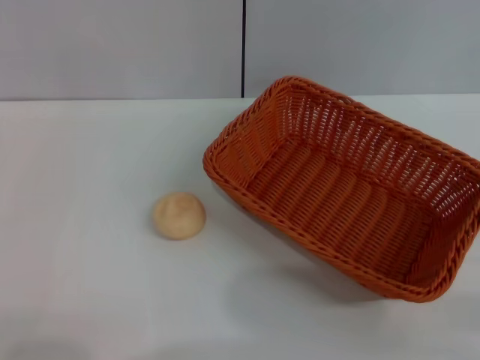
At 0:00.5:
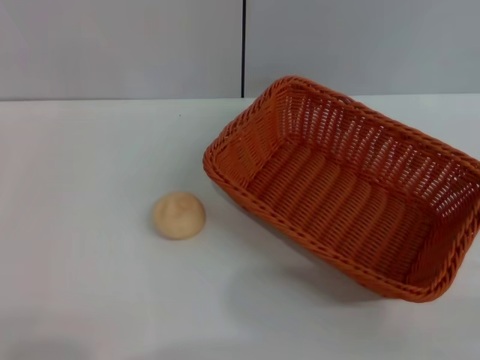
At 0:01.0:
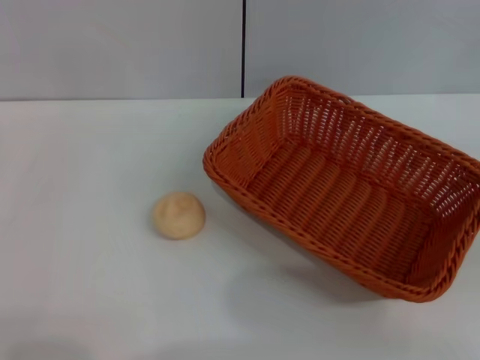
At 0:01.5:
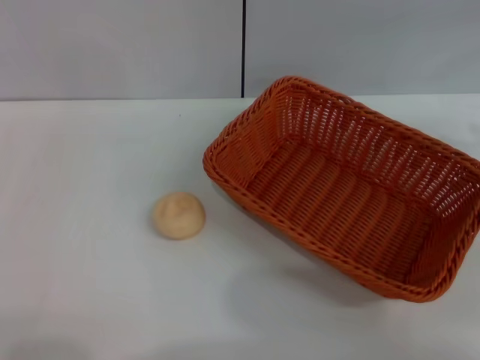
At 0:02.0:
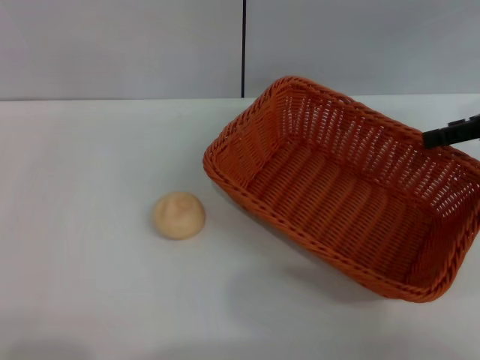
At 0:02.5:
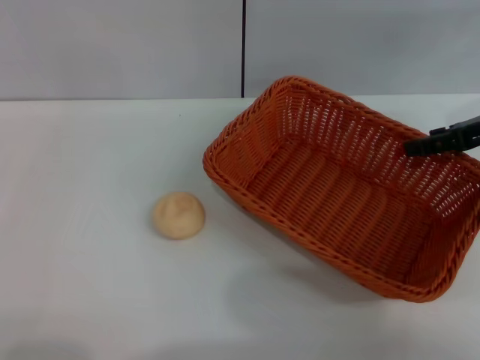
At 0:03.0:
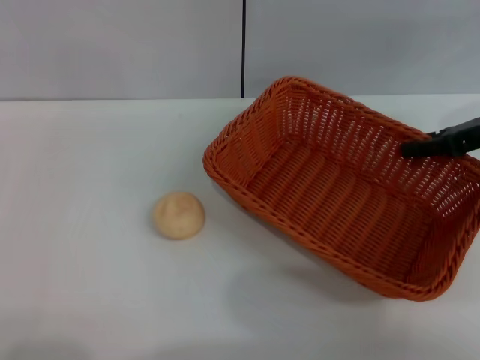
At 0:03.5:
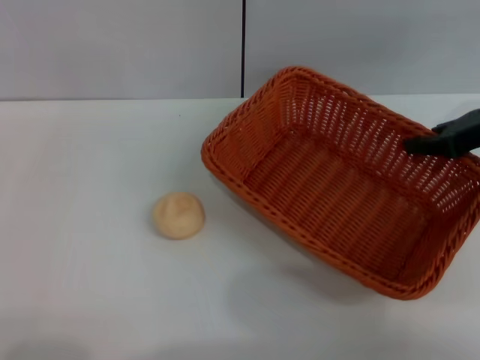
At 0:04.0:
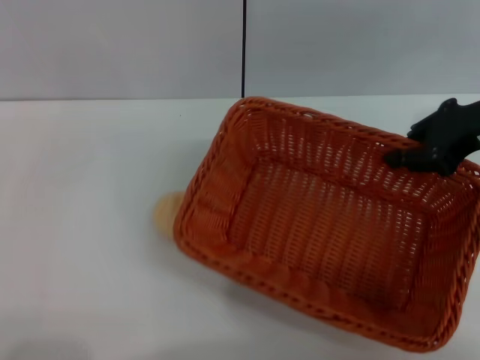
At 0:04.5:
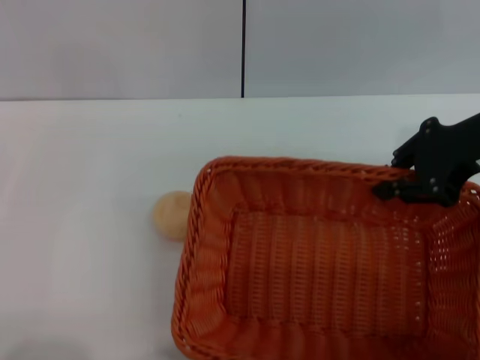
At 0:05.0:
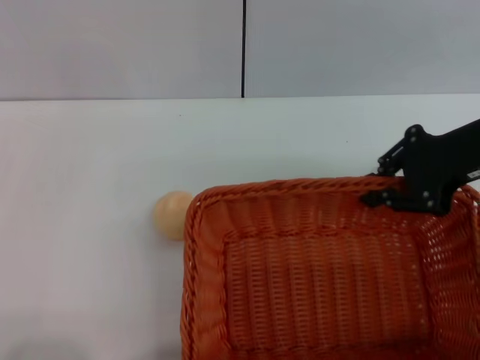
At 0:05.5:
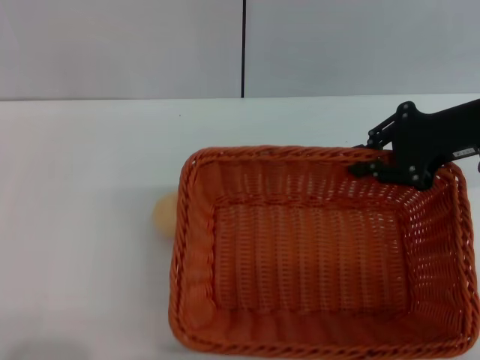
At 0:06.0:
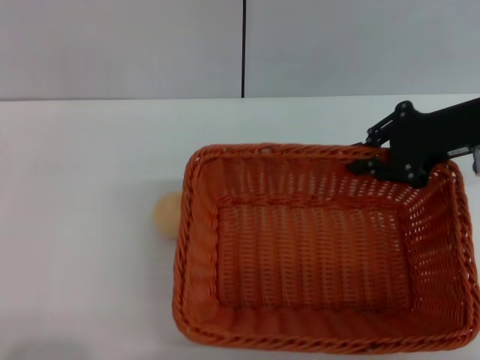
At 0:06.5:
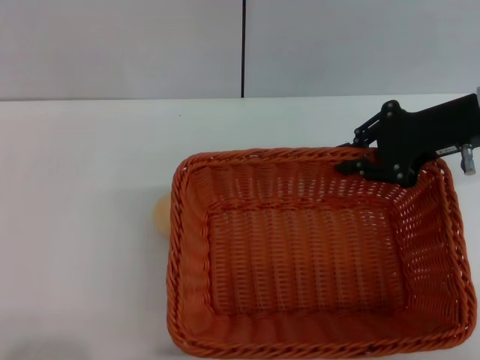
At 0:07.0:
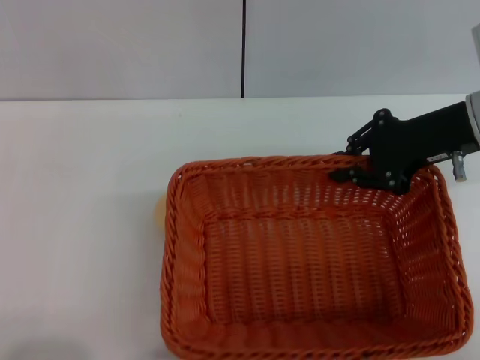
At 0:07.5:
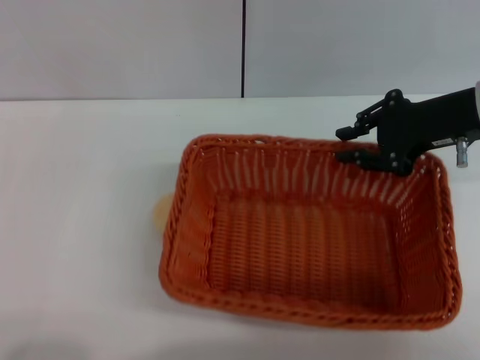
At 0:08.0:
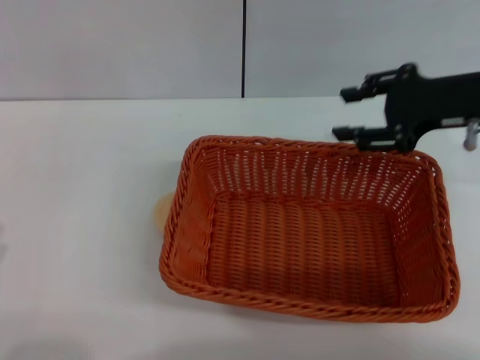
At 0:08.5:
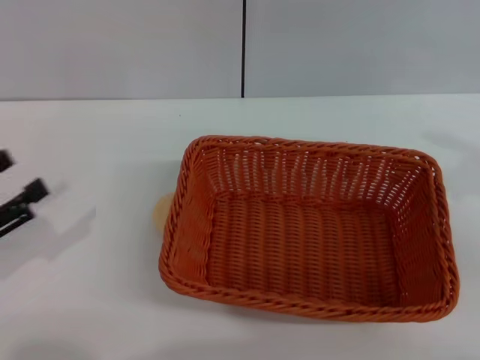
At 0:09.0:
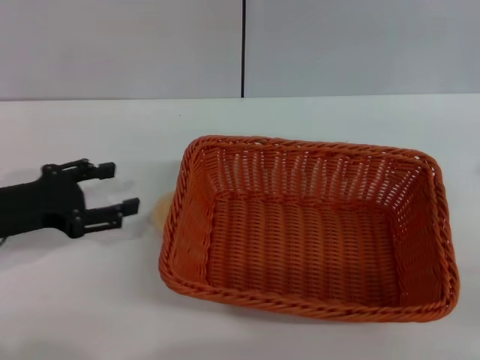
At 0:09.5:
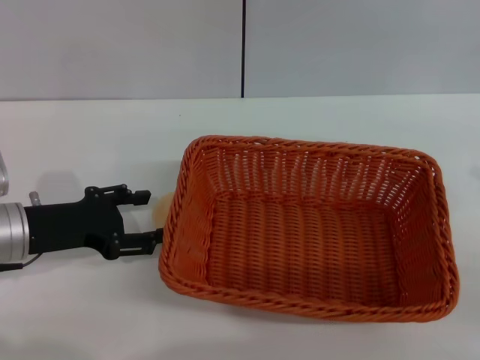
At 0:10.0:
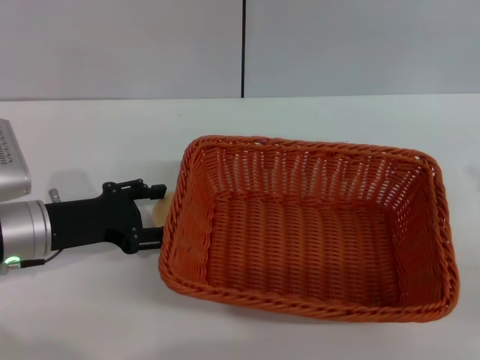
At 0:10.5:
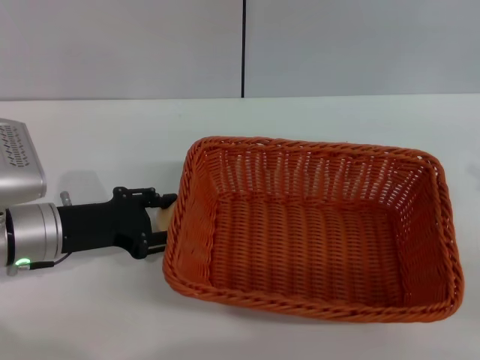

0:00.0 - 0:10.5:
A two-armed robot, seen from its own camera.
Step, 0:00.0 - 0:07.5: Move the basket to the center of view with the right gripper.
0:00.0 - 0:02.0: The right gripper goes about 20 cm forward and upward.
0:02.0 - 0:04.0: The right gripper is displaced to the left by about 5 cm, and closes.
0:06.5 - 0:08.5: The right gripper moves backward and to the right, roughly 15 cm, and opens, while the left gripper is displaced forward by roughly 10 cm.
0:08.5 - 0:10.5: The left gripper goes some 15 cm to the right and forward. The right gripper moves roughly 5 cm.

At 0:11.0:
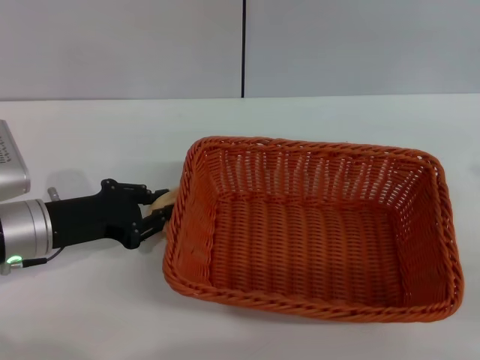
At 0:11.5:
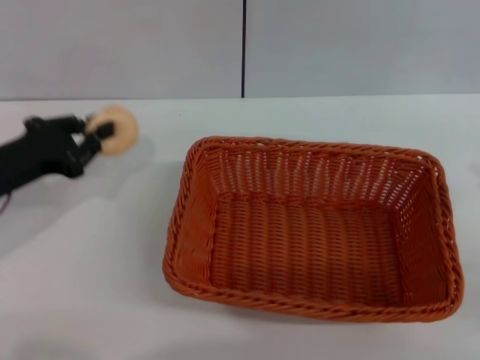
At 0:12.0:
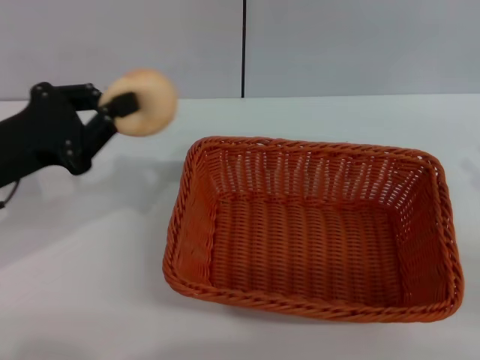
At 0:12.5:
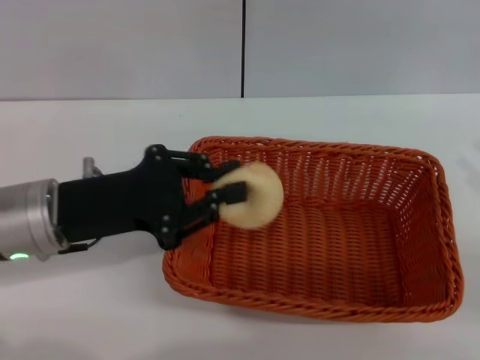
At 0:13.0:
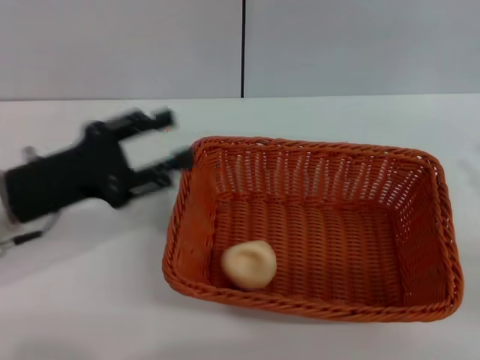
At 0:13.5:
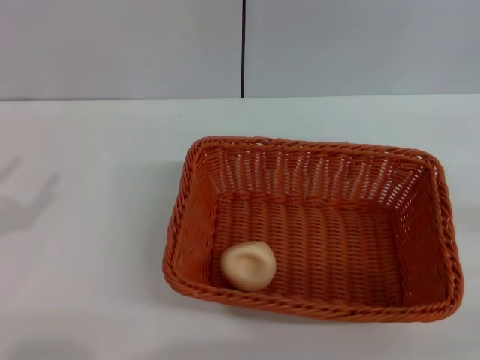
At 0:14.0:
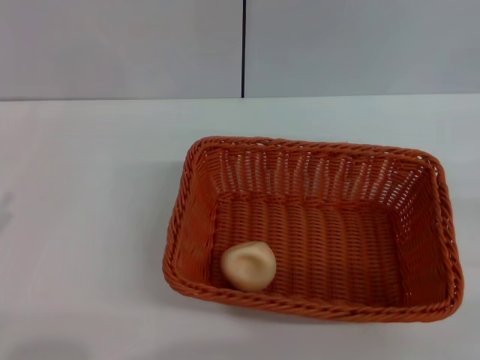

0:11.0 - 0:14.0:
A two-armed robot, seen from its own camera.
Step, 0:11.5 - 0:12.5: Place the egg yolk pastry into the basket with the left gripper.
0:11.0 - 0:12.5: The left gripper goes about 5 cm upward.
0:12.5 - 0:14.0: The right gripper ends up approximately 5 cm from where it was. Meanwhile the left gripper heads to the left and backward, covering roughly 20 cm, and opens its fingers.
